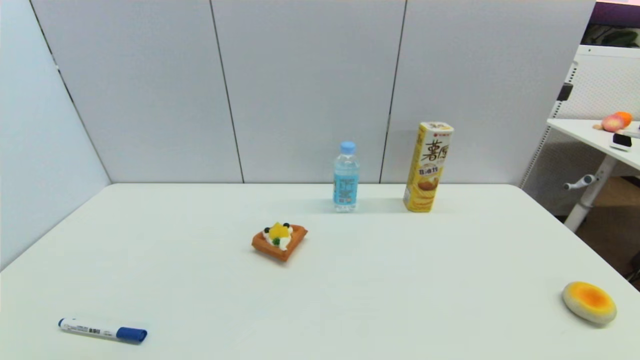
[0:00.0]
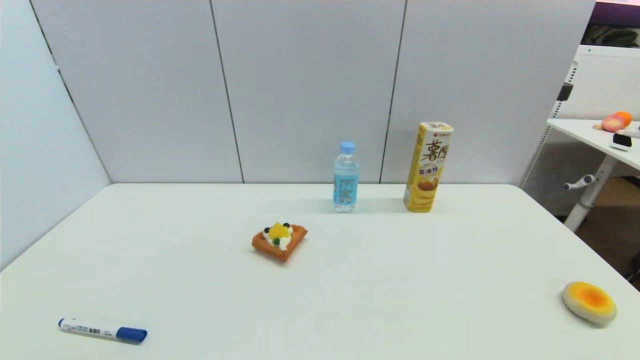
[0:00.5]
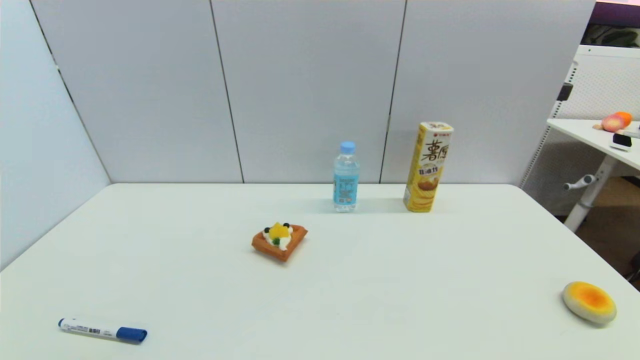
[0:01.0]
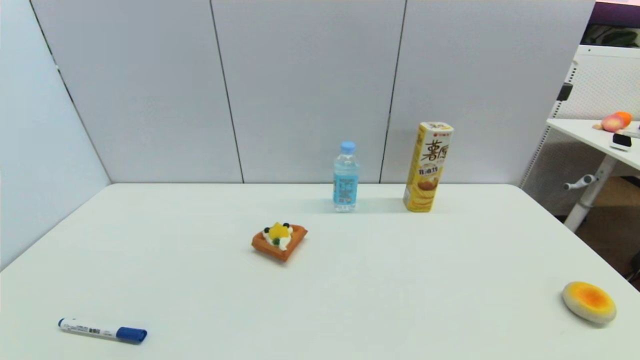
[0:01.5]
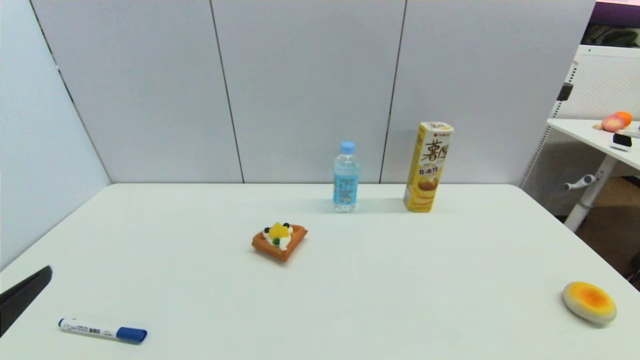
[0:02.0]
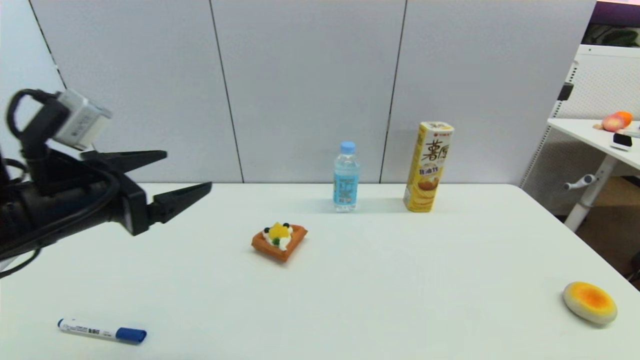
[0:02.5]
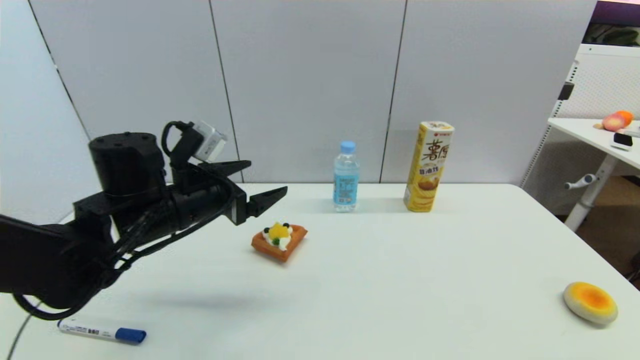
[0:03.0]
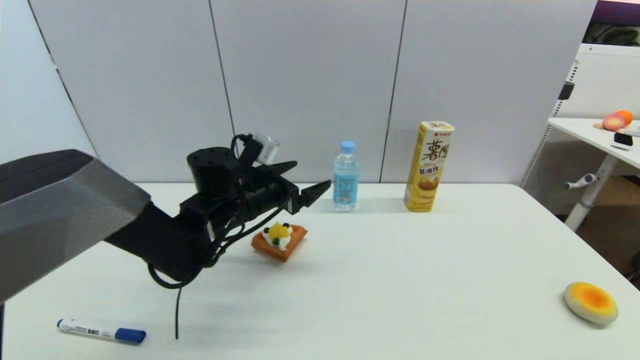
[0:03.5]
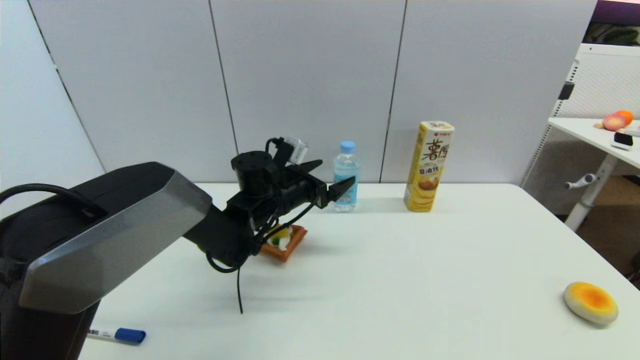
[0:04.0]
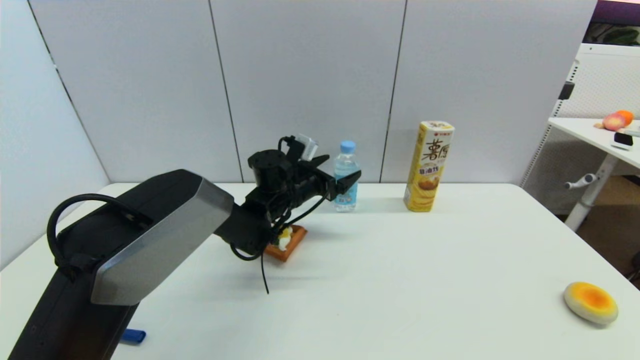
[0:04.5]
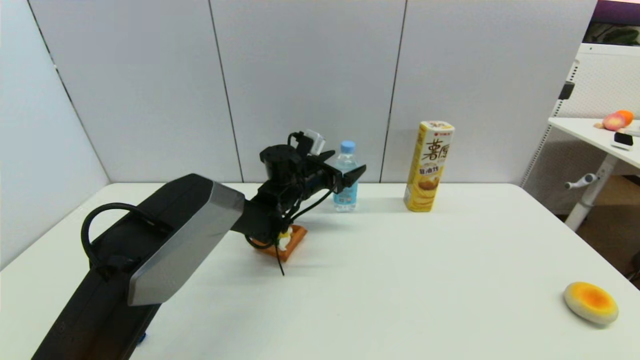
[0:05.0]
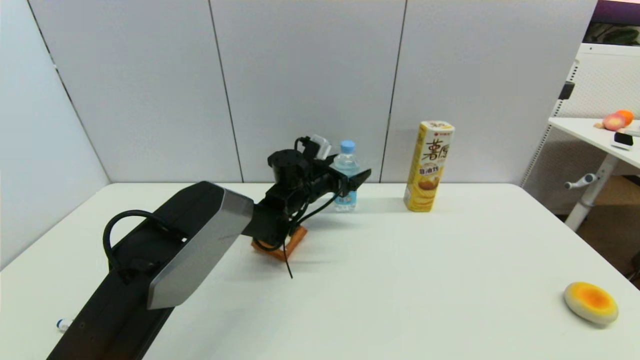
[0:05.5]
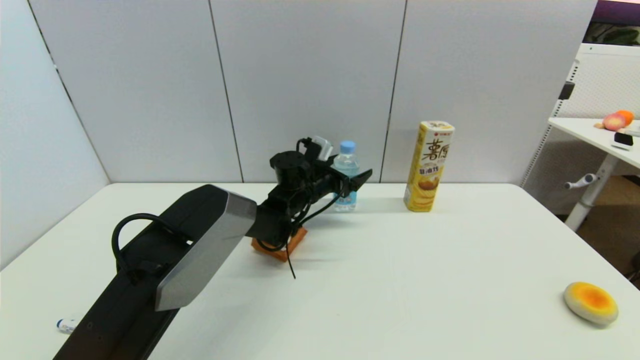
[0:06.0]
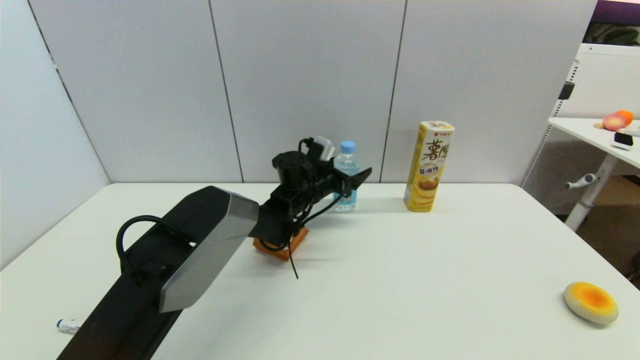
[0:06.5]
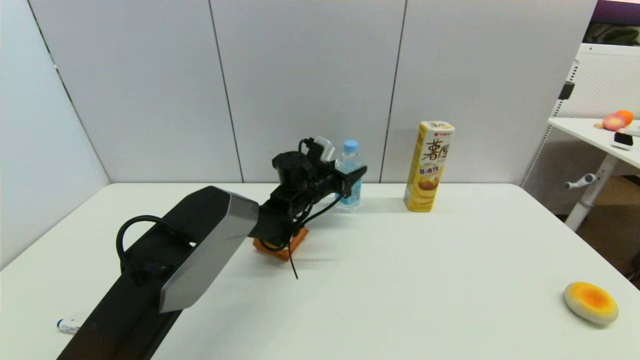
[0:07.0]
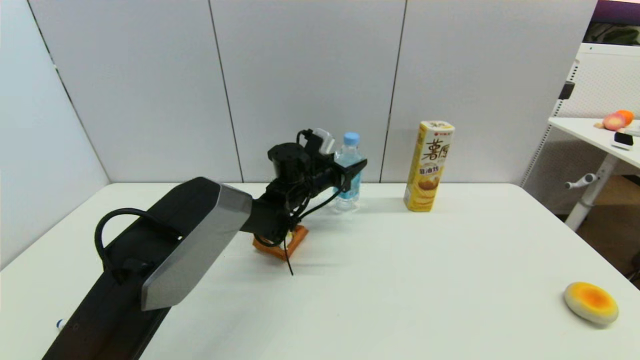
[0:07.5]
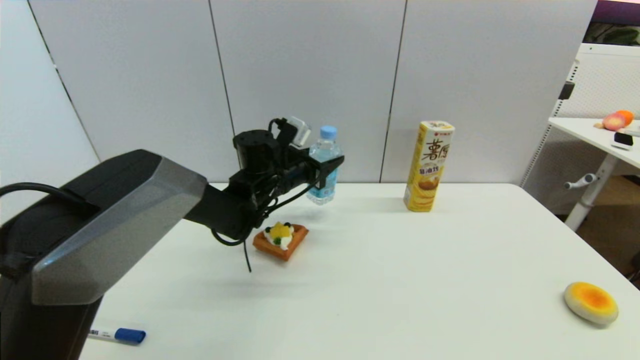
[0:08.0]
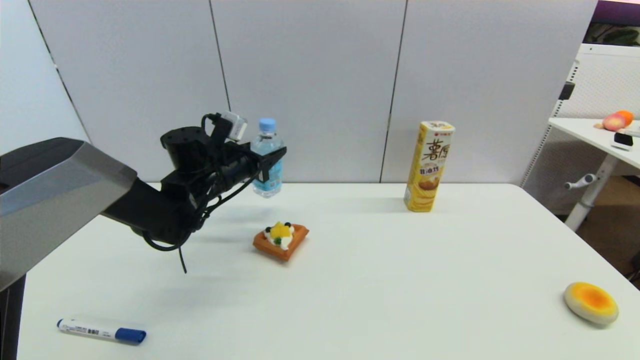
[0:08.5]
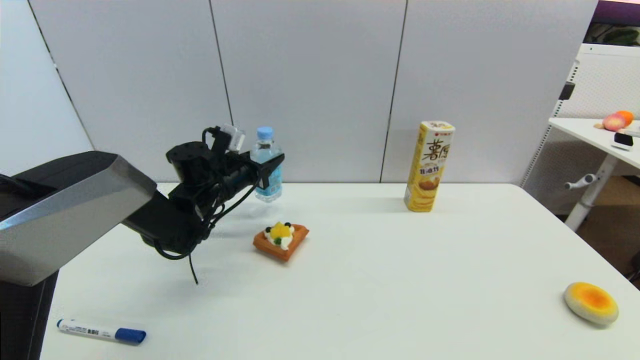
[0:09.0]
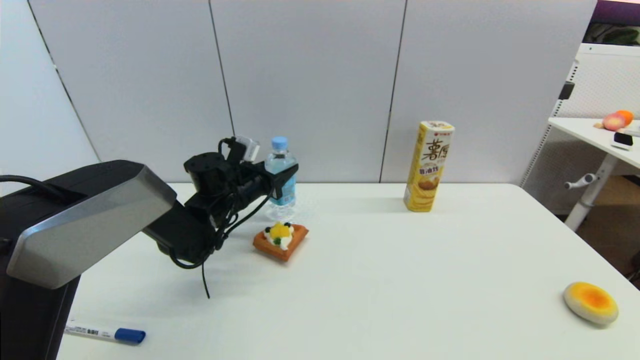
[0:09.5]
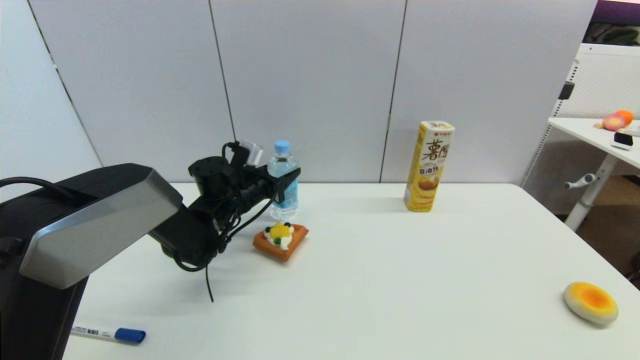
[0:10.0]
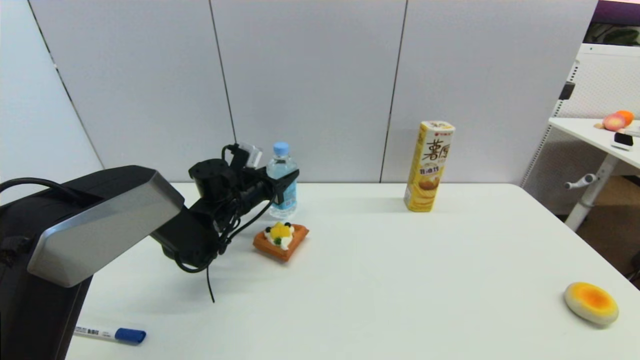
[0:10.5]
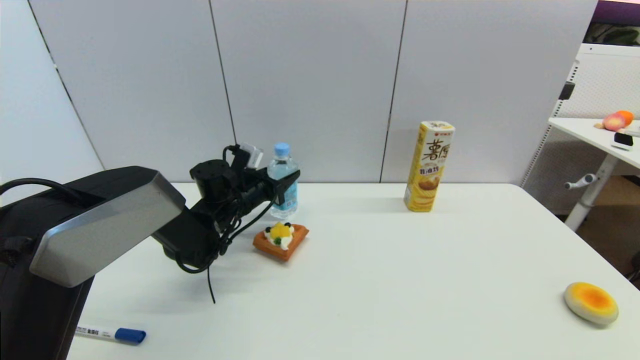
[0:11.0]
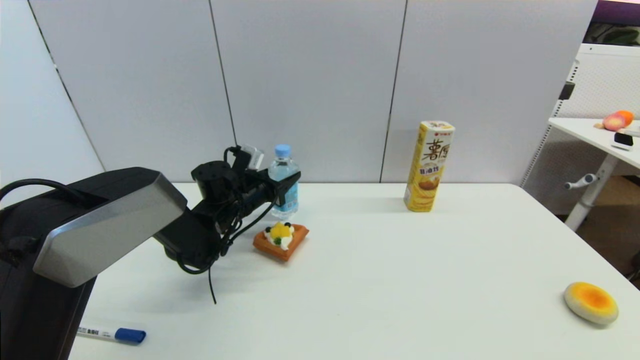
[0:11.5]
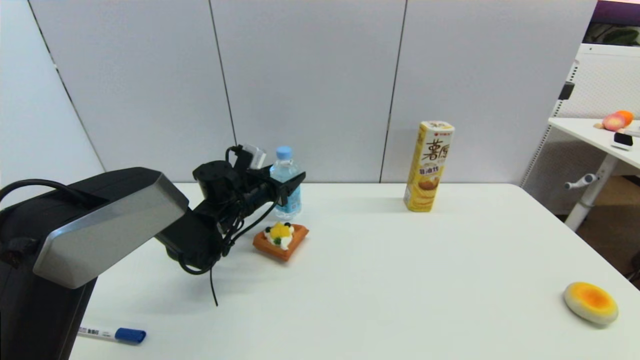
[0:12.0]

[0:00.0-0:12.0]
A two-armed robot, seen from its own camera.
Step, 0:01.5 to 0:06.5: Grasp the soda water with left gripper.
Step, 0:07.5 to 0:11.5: Place the soda water on the table with left gripper.
0:00.0 to 0:02.0: The left gripper goes roughly 15 cm upward and forward.
0:02.0 to 0:04.0: The left gripper travels forward and to the right by roughly 40 cm.
0:04.0 to 0:06.0: The left gripper goes roughly 10 cm forward and to the right.
0:06.0 to 0:08.0: The left gripper moves upward and to the left, some 10 cm, and closes.
0:08.0 to 0:10.0: The left gripper goes roughly 10 cm to the left.
0:10.0 to 0:12.0: The left gripper opens its fingers.

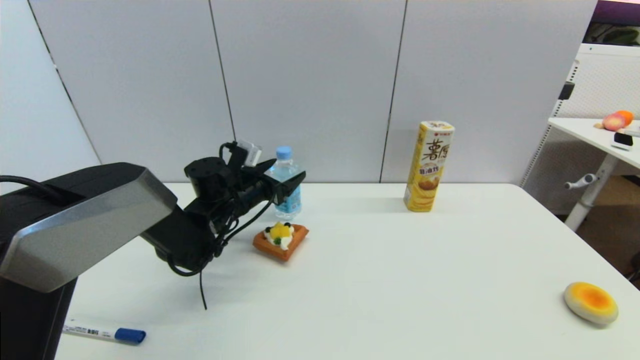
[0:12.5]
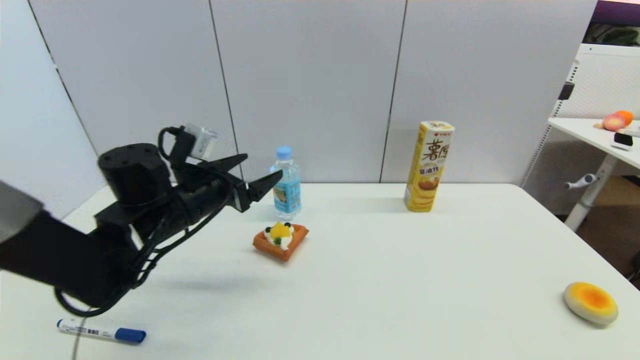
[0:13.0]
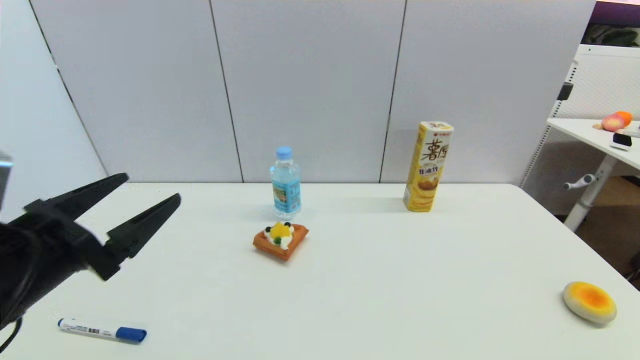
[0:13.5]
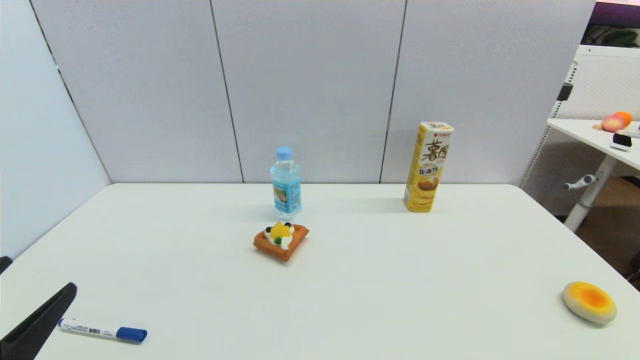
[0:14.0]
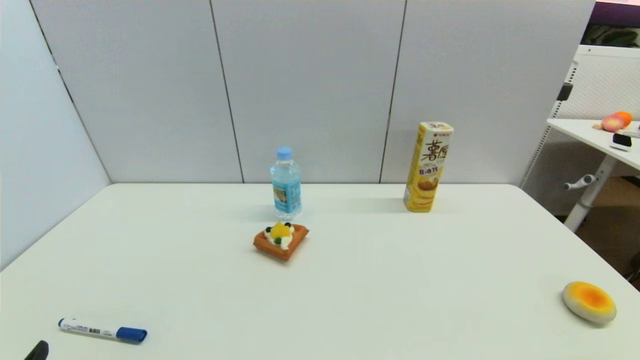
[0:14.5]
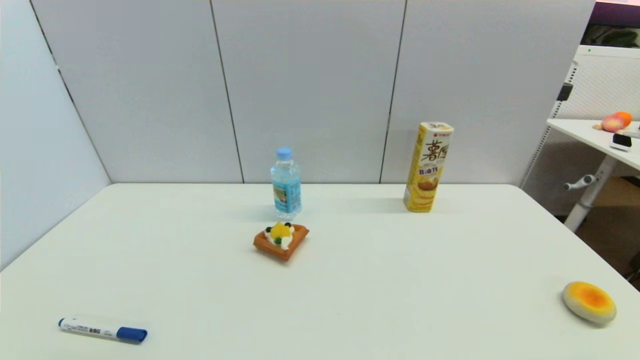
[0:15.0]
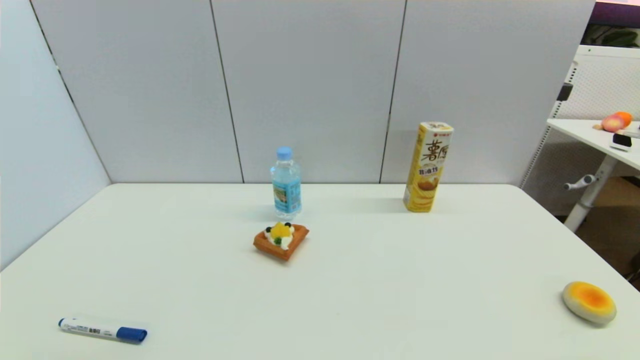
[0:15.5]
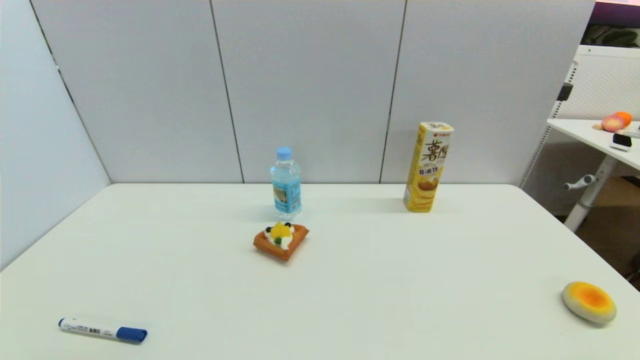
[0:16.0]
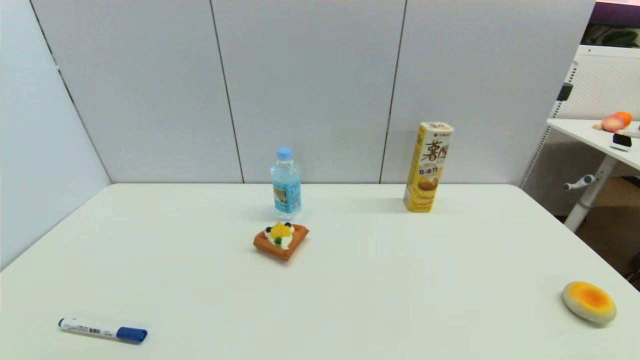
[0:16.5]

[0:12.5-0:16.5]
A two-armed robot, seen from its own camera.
0:12.5 to 0:14.5: The left gripper is displaced backward by about 40 cm.
